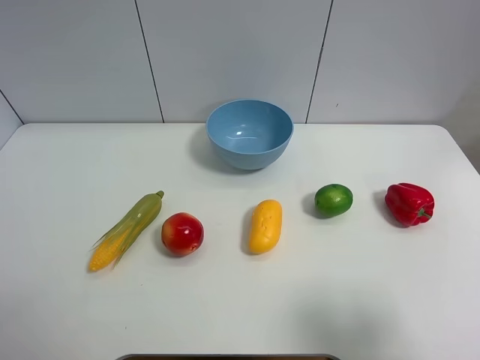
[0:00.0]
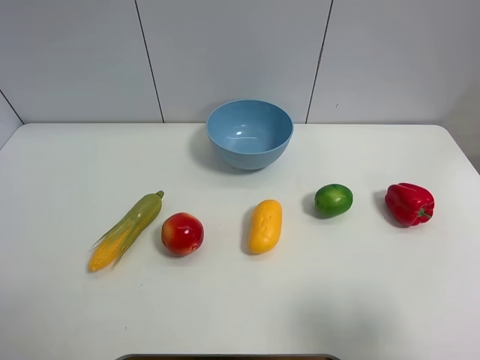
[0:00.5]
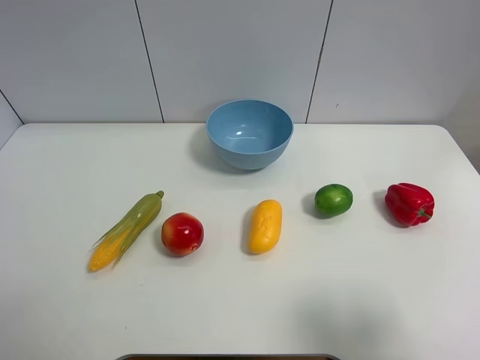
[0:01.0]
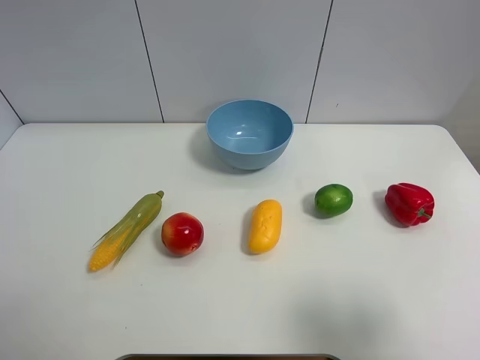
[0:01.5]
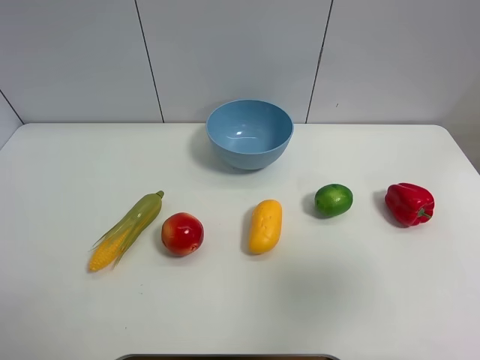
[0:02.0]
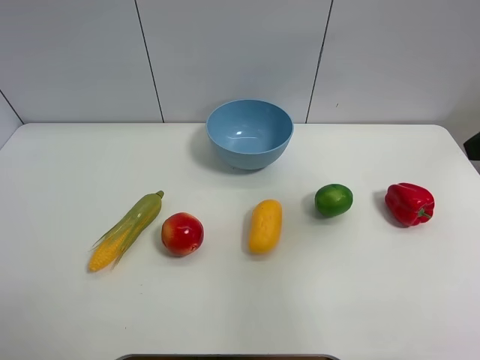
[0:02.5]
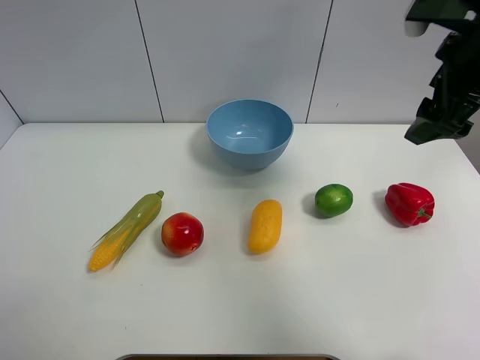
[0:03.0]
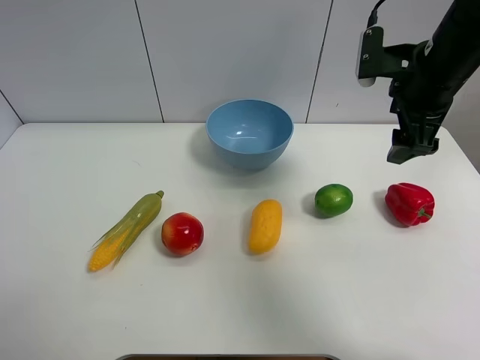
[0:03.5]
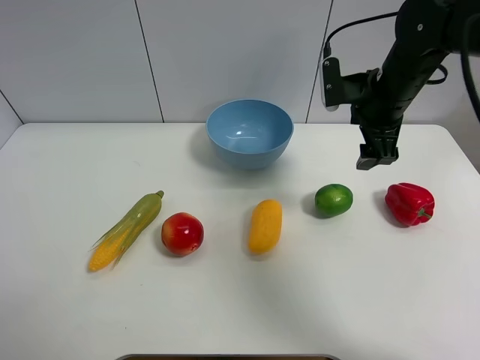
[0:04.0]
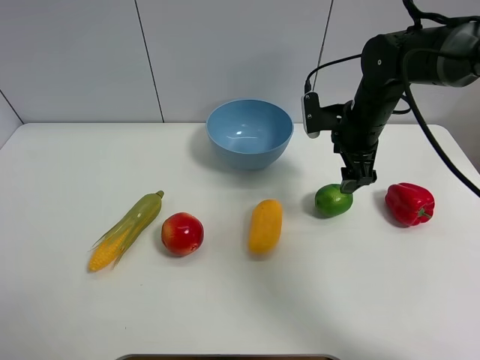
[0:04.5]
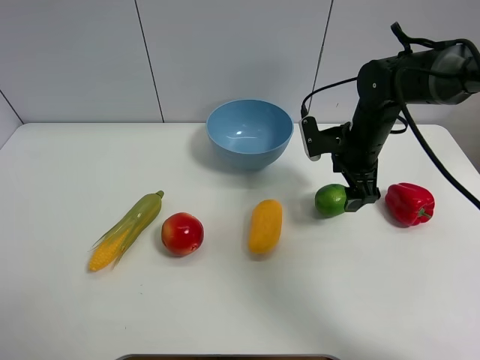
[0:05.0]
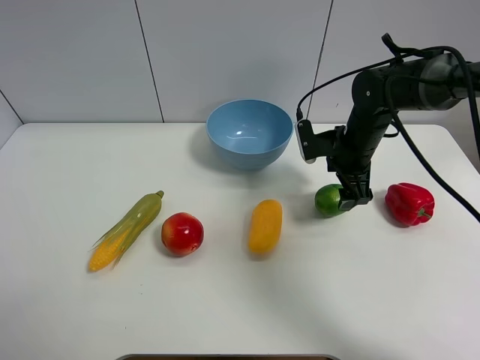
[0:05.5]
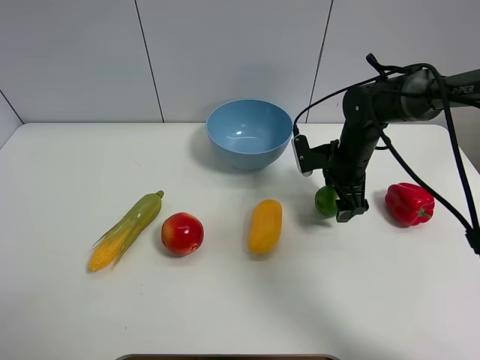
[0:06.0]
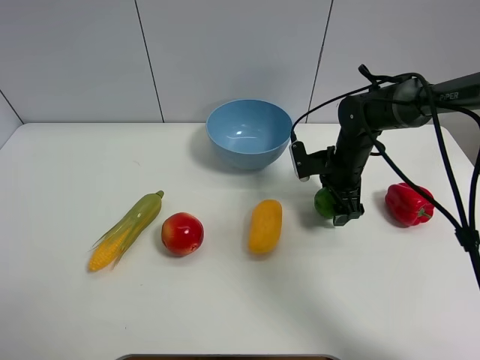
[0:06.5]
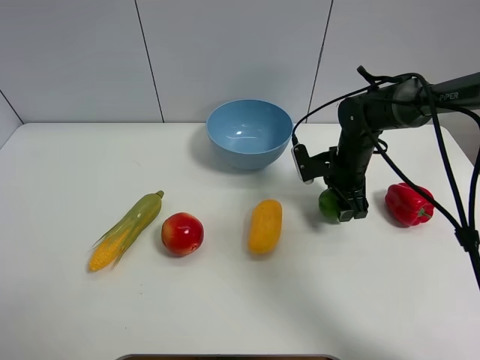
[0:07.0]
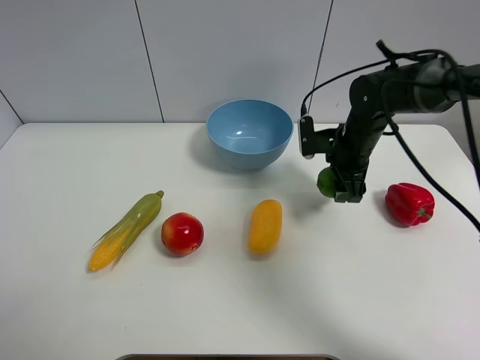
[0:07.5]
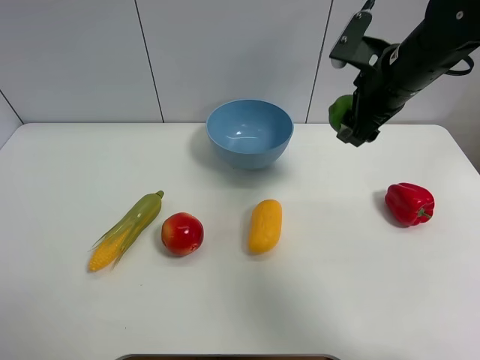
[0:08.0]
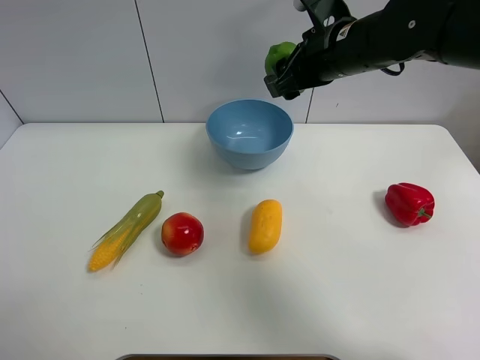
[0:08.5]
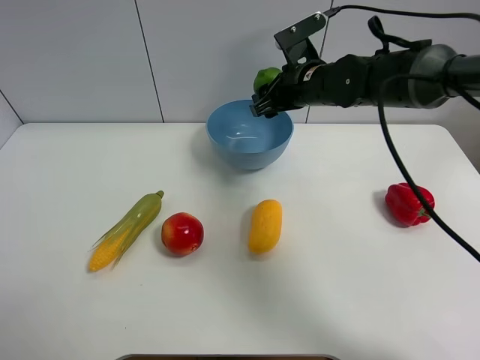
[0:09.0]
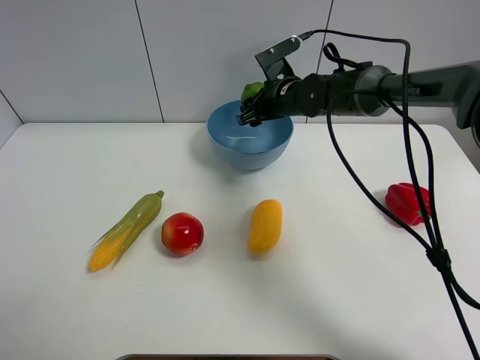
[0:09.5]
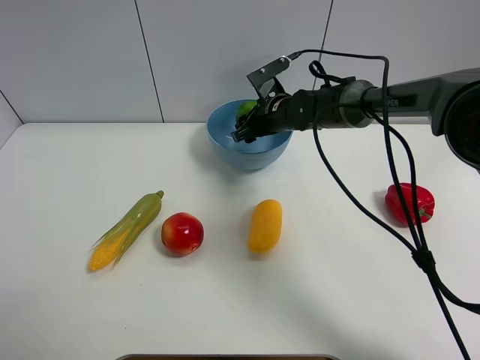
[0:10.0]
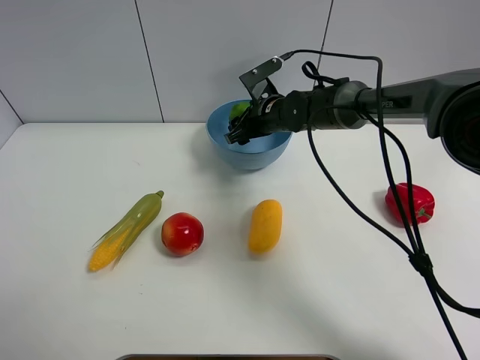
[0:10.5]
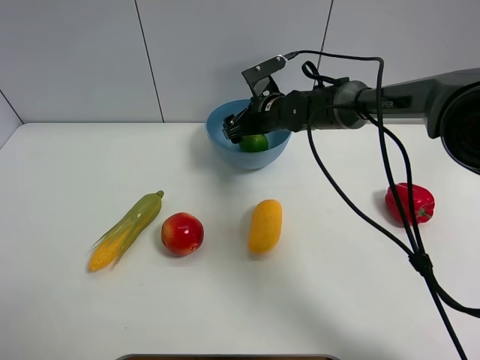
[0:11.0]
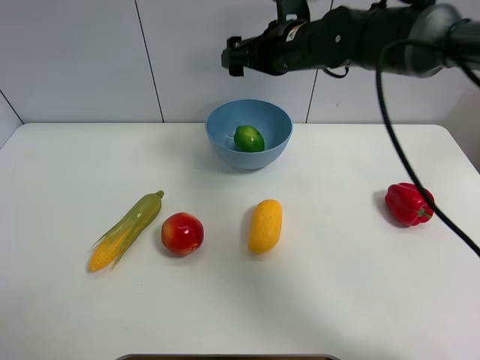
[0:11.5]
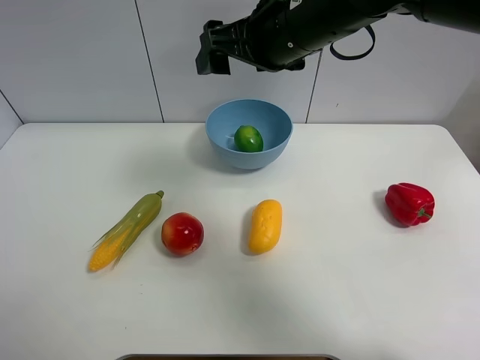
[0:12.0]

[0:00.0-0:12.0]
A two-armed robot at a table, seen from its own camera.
Task of the whole recording: Put the three fruits on the table into a bowl.
Step, 0:00.0 to 0:06.5: Grasp the green lemon with right gripper.
Step, 0:07.0 to 0:11.0: Place the green lemon in the blue bowl with right gripper.
0:00.0 to 0:02.0: The right gripper moves upward and forward, approximately 10 cm.
0:02.0 to 0:04.0: The right gripper shifts some 35 cm forward and downward.
0:04.0 to 0:06.0: The right gripper heads downward, covering roughly 10 cm.
0:06.0 to 0:08.0: The right gripper moves upward, approximately 15 cm, and closes its fingers.
0:08.0 to 0:10.0: The right gripper goes approximately 20 cm downward, forward and to the left.
0:10.0 to 0:12.0: The right gripper shifts roughly 25 cm upward and backward, and opens its fingers.

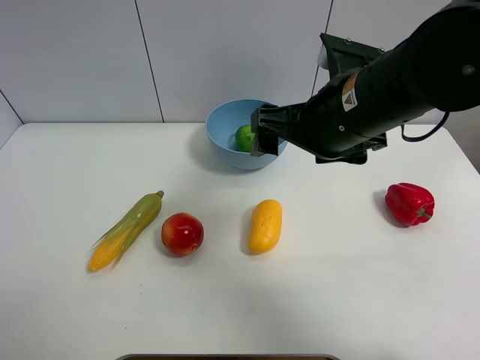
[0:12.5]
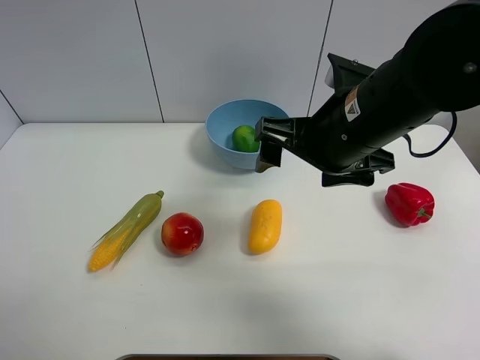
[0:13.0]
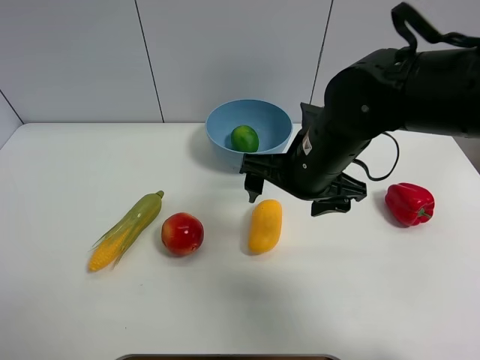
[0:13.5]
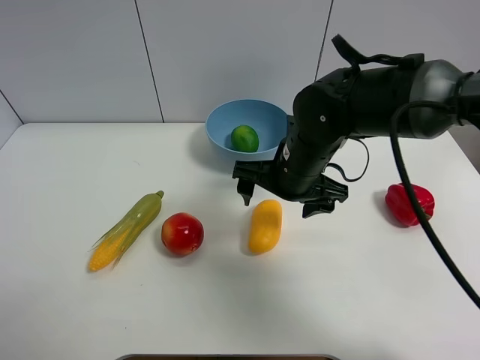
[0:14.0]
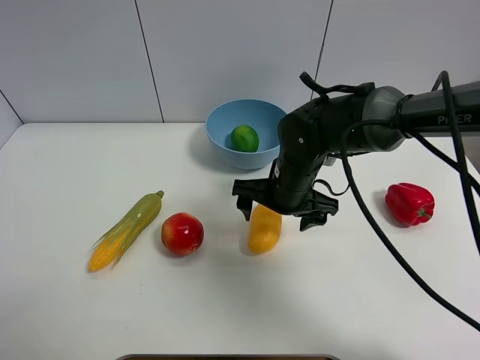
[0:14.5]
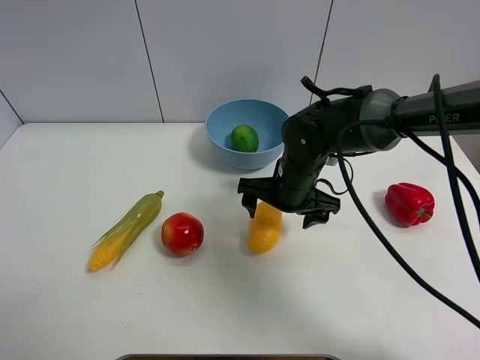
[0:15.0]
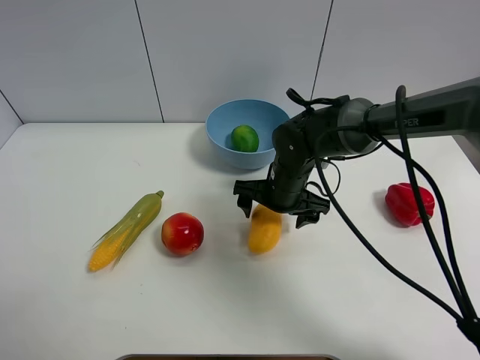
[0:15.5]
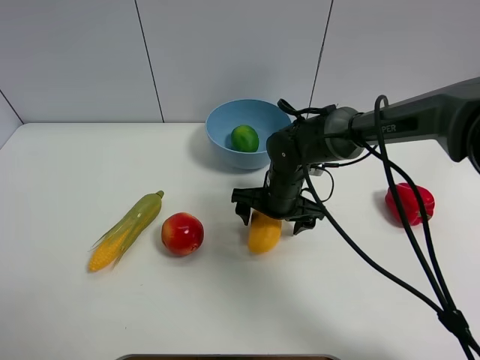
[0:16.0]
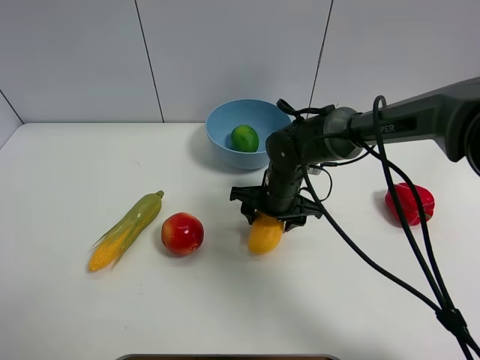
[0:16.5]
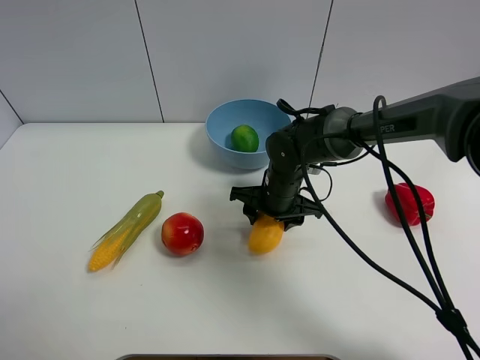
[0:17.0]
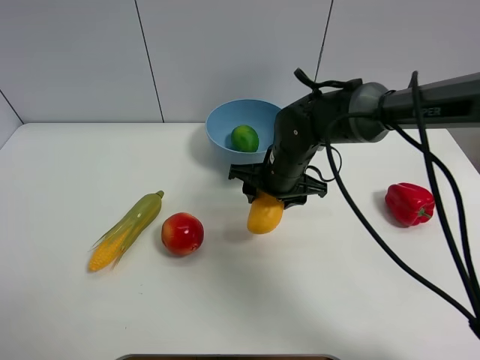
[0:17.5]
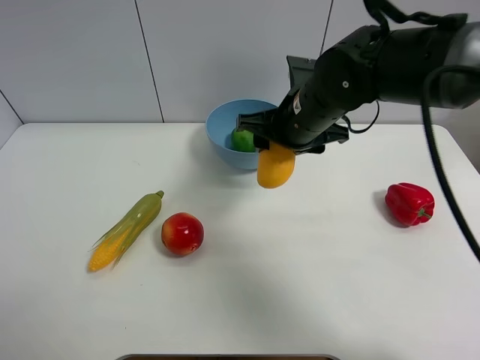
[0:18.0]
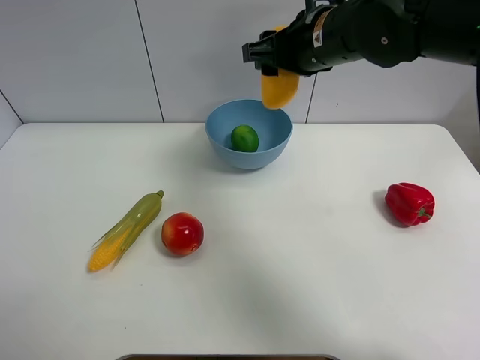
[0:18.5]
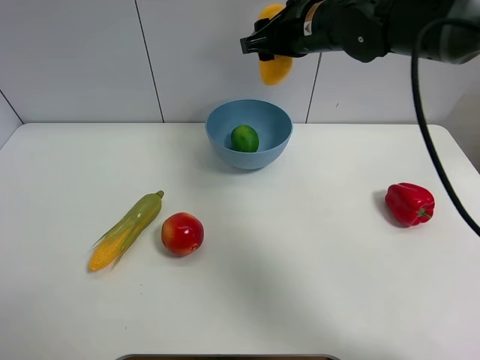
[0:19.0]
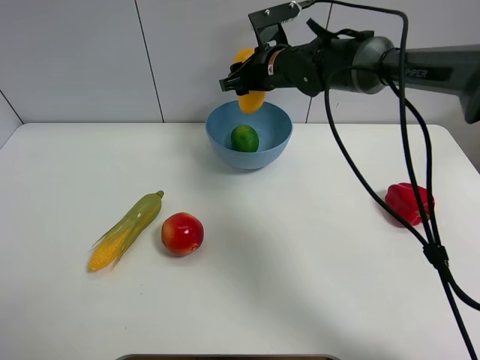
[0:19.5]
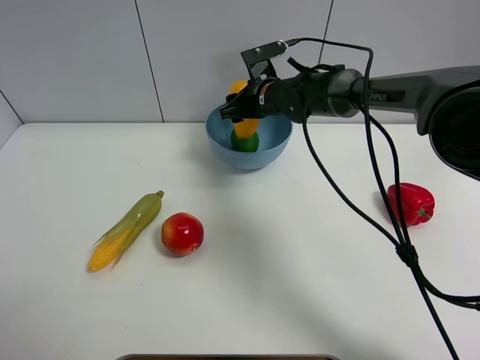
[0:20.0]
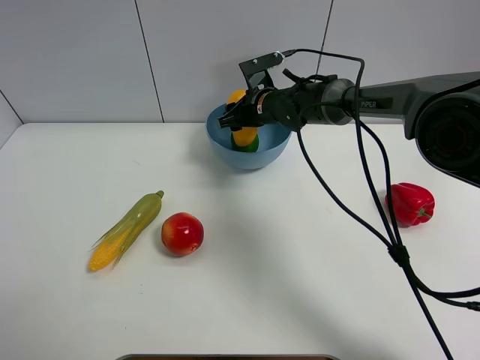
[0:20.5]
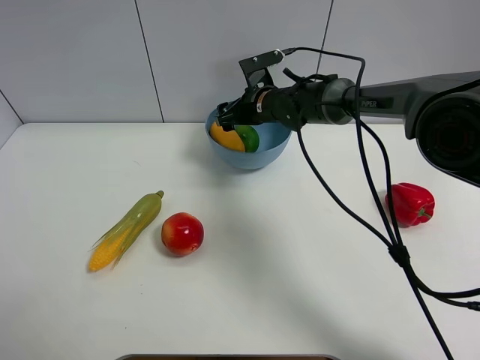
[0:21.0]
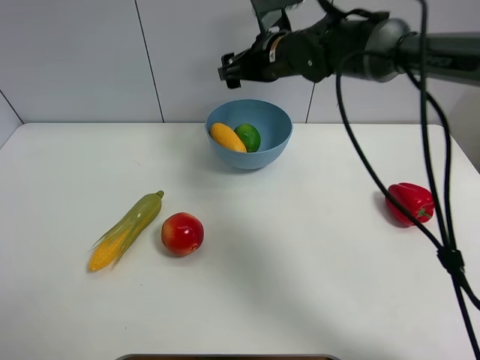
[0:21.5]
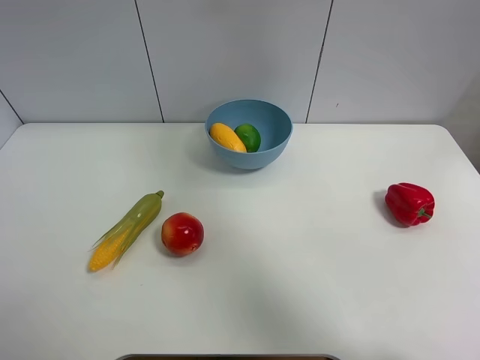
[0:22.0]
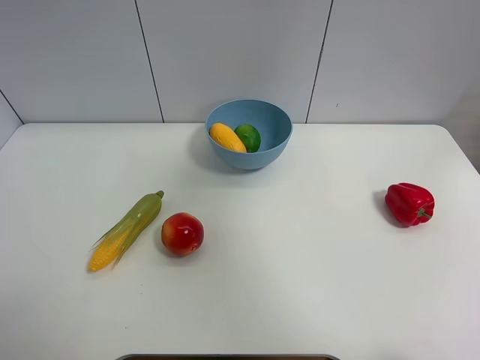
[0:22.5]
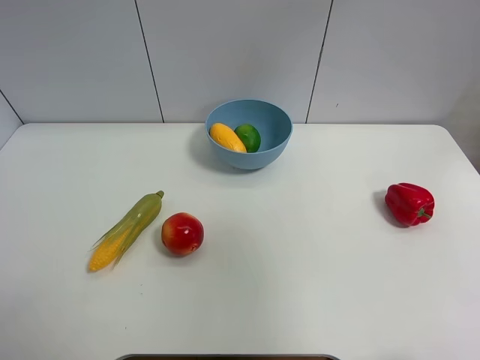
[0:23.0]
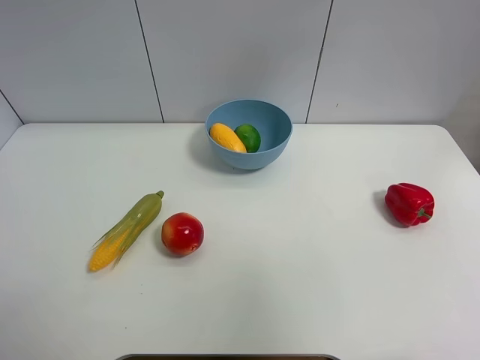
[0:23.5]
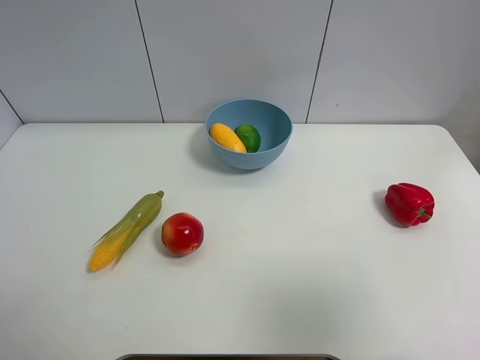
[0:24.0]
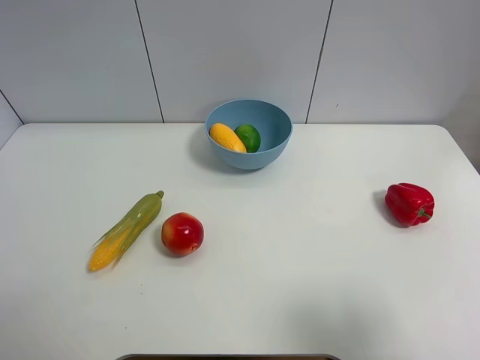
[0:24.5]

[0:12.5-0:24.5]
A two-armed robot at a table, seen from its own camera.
Task of the whole recording: Put the three fruits on the table into a bowl.
Step, 0:12.5 to 0:16.5: Grasp the mango with right gripper.
Step, 0:17.0 to 0:21.0: Place the mango in the blue bowl with right gripper.
0:12.5 to 0:14.5: The right gripper travels downward by about 15 cm.
0:14.5 to 0:16.5: The right gripper is displaced downward by some 5 cm, and closes its fingers.
0:16.5 to 0:18.5: The right gripper goes approximately 20 cm upward.
0:18.5 to 0:20.5: The right gripper heads downward and forward, covering some 20 cm.
0:20.5 to 0:22.5: The right gripper goes about 50 cm upward, backward and to the right, and opens up.
0:22.5 to 0:24.5: The right gripper travels downward and backward by about 30 cm.

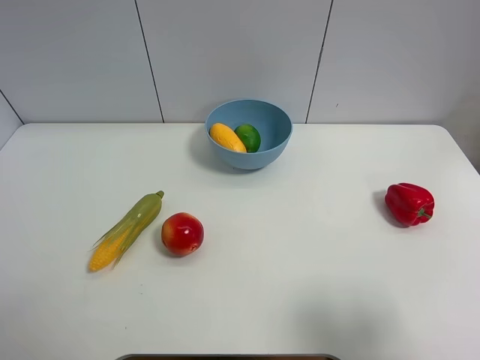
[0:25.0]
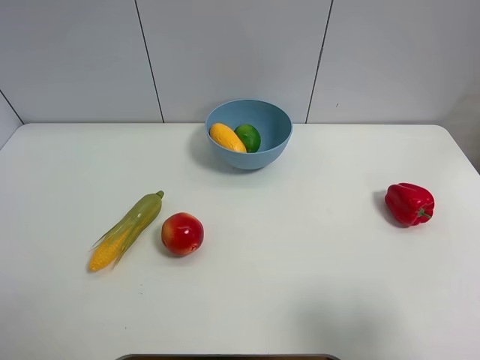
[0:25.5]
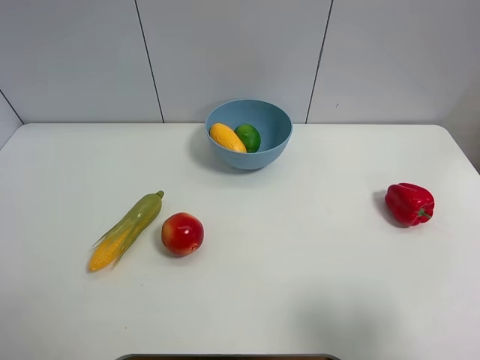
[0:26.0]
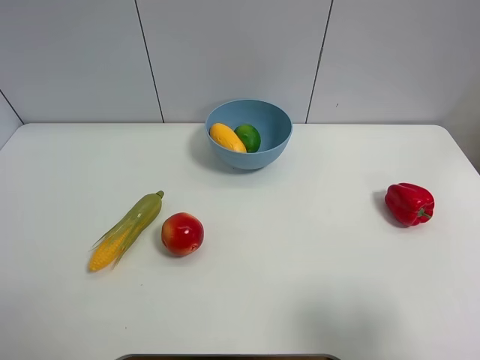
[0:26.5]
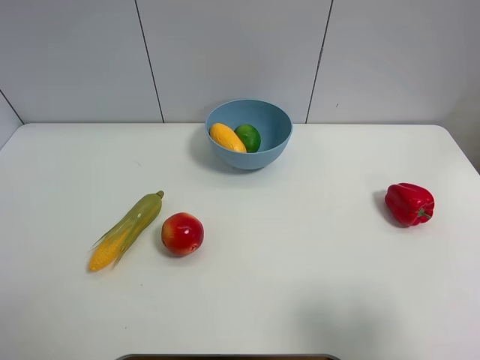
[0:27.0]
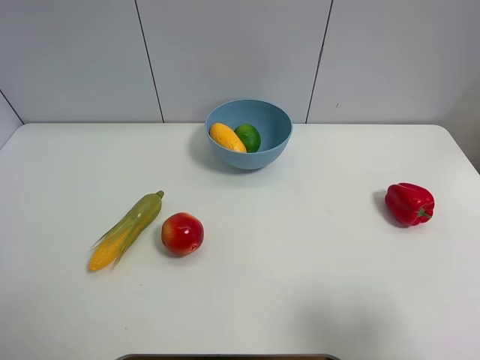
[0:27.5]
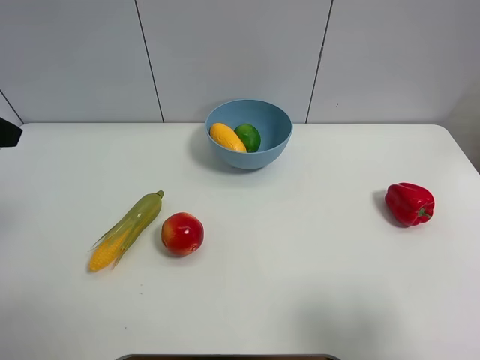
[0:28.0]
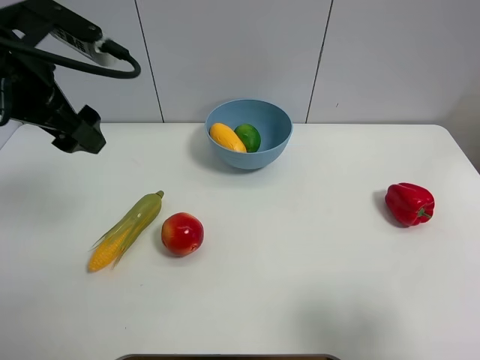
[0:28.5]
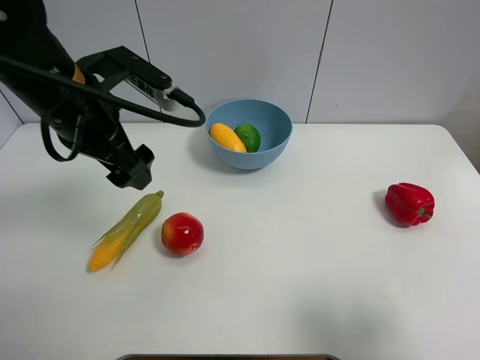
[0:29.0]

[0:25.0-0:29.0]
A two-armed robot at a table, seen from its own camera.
Task of the whole recording: Put the three fruits on the table into a bowl.
0:27.0 to 0:29.0: The left gripper goes roughly 30 cm forward and to the right.
